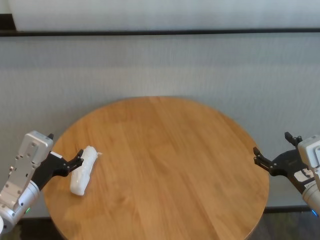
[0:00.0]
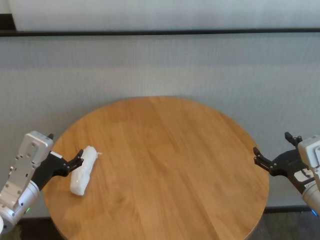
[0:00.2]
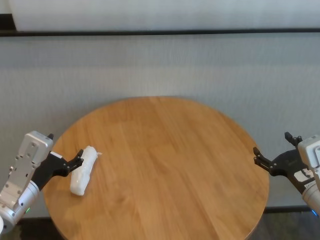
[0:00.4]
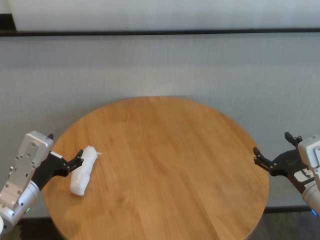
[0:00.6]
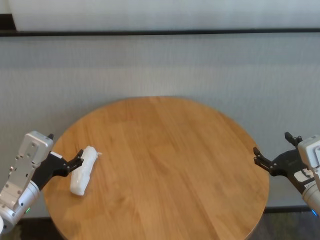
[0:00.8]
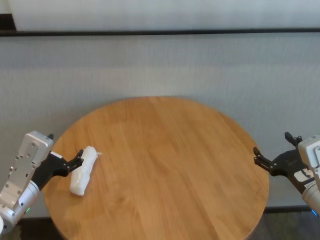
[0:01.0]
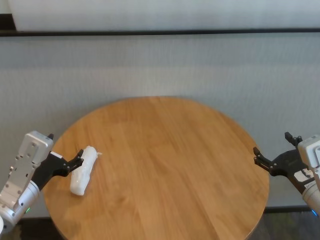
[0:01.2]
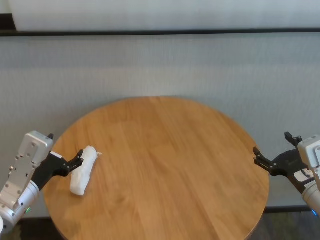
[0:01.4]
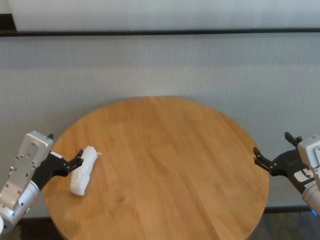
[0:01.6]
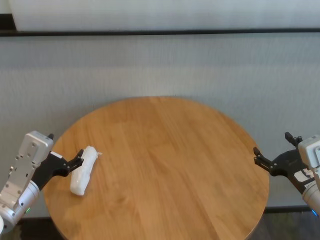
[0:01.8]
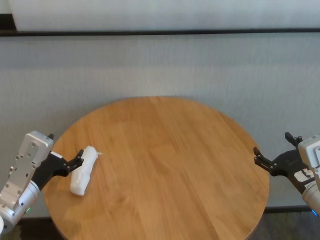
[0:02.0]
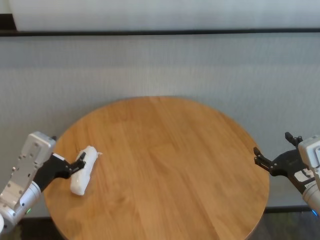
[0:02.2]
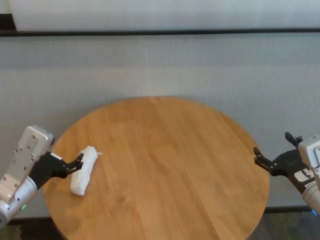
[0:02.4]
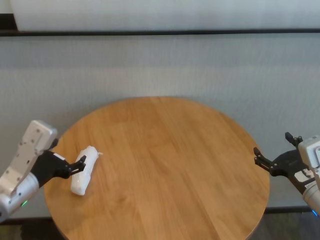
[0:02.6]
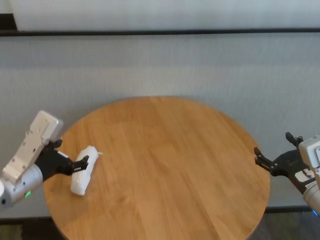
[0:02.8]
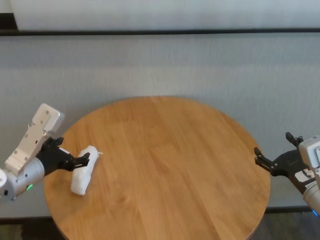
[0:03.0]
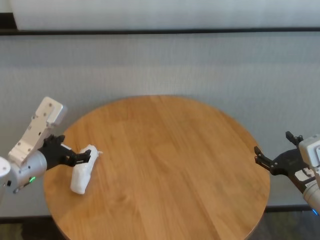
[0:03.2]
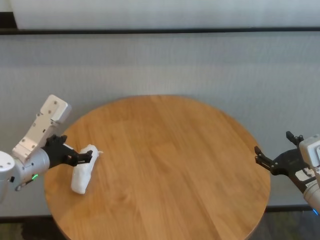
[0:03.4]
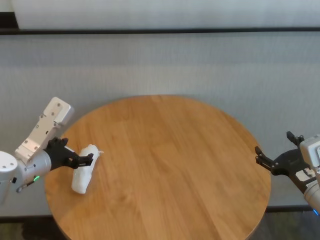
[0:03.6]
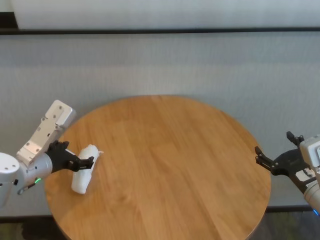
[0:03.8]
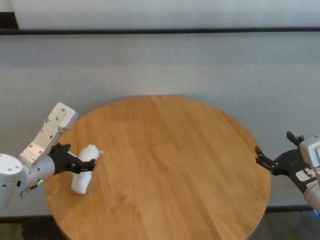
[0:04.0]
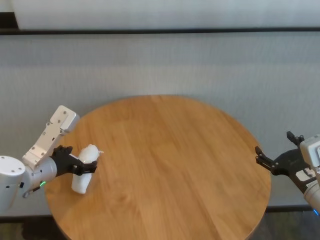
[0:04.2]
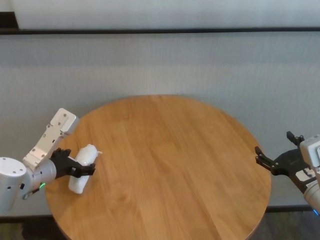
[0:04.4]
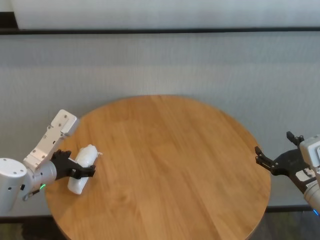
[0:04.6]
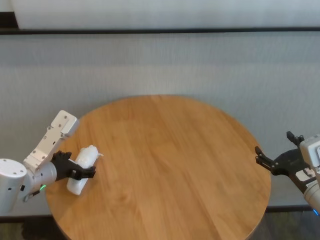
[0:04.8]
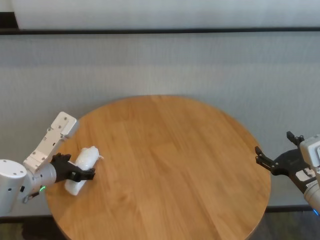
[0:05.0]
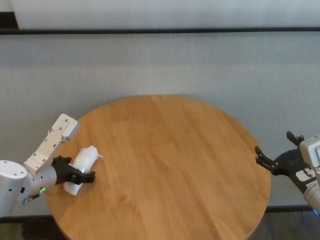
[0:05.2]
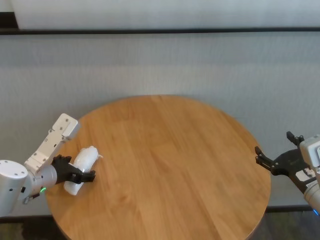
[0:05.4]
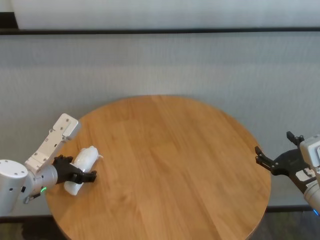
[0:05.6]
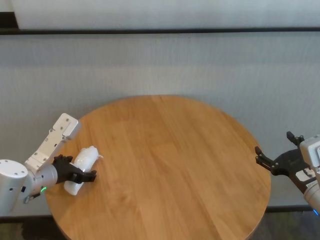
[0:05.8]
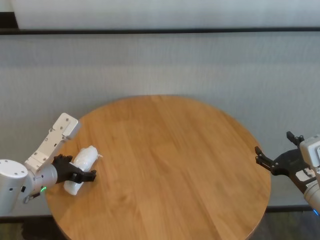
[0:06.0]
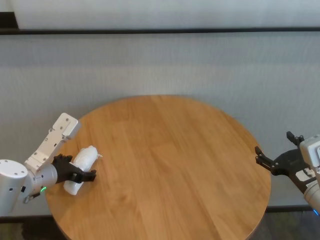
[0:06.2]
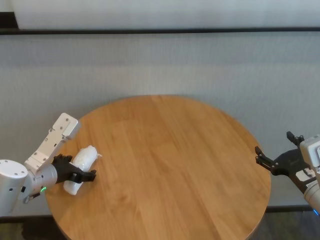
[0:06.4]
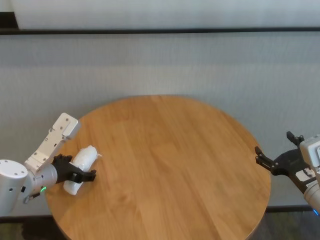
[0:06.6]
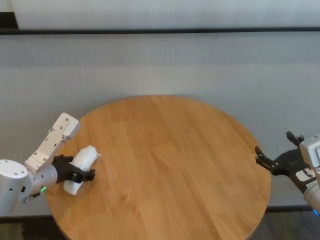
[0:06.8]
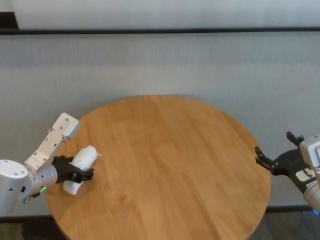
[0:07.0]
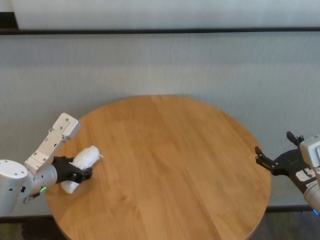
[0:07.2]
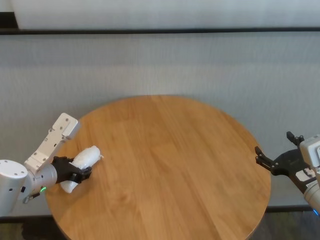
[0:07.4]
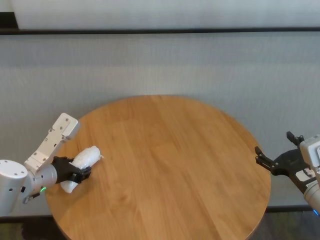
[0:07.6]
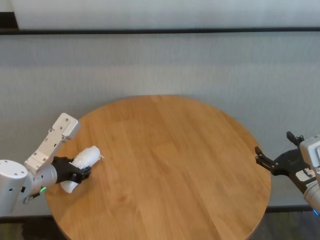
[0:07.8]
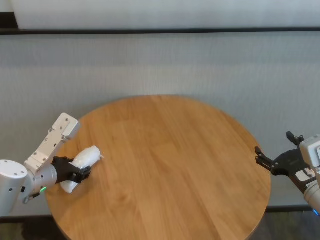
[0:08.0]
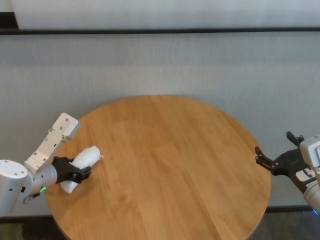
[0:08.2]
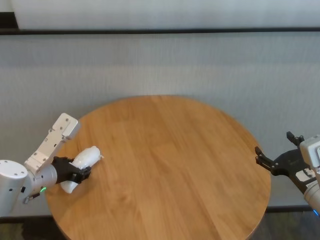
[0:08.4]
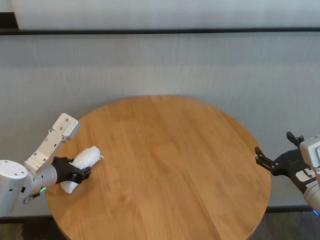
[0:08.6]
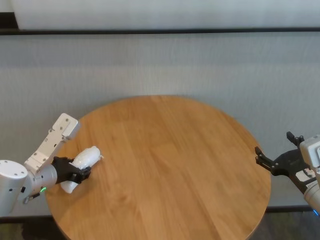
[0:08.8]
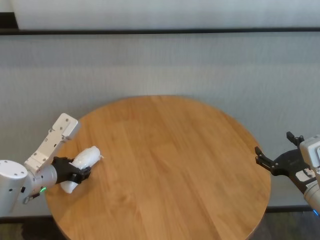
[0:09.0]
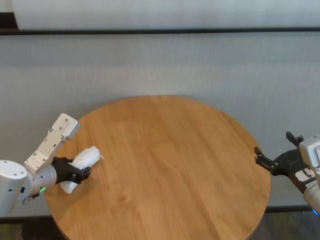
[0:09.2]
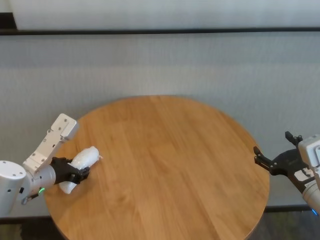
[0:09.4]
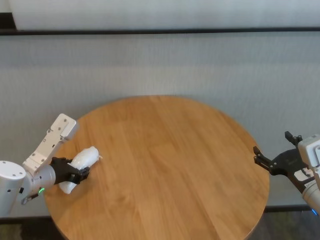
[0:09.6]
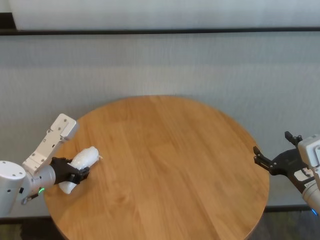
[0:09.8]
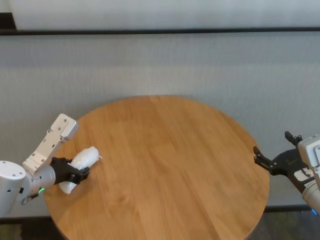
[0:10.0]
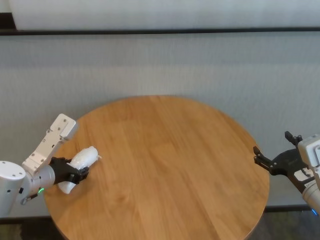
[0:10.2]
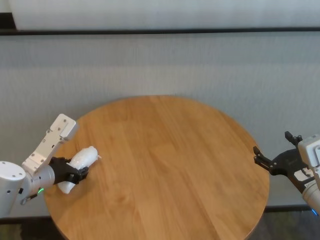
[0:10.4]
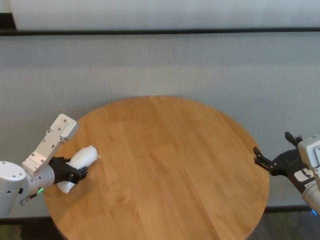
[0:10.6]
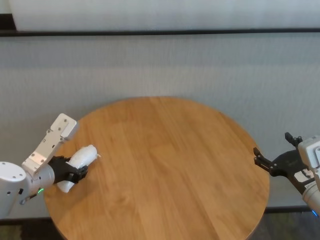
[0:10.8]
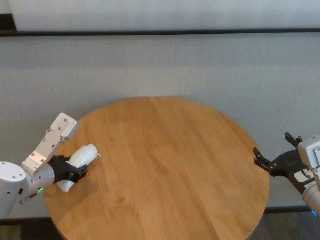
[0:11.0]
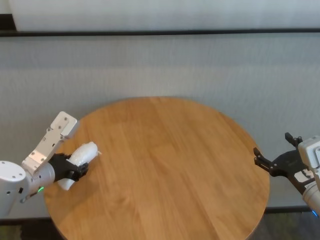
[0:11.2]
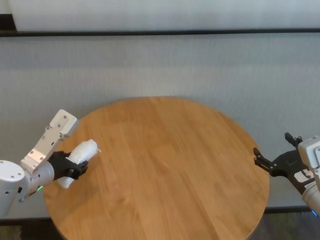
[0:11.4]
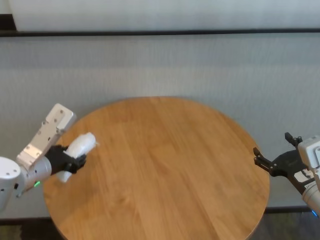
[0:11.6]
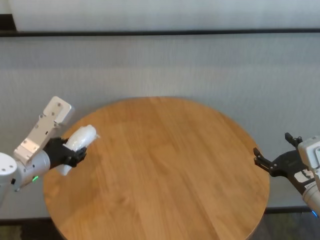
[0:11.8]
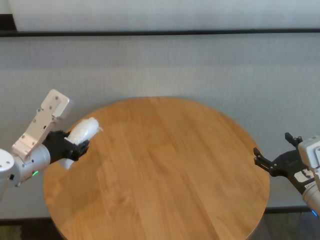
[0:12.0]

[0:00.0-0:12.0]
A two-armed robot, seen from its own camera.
Task of the whole recording: One hand took the sandbag from the other hand and placed it on the table.
Step, 0:00.0 to 0:07.6: Grasp the paper ball with left gripper.

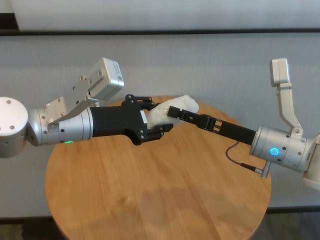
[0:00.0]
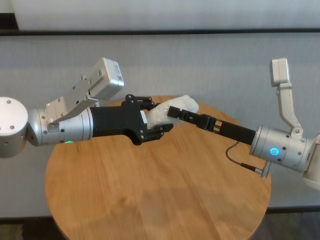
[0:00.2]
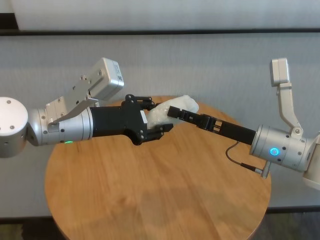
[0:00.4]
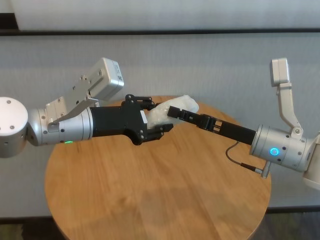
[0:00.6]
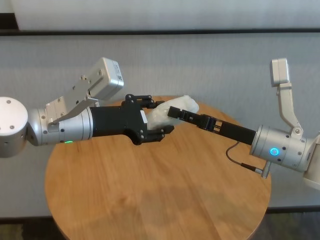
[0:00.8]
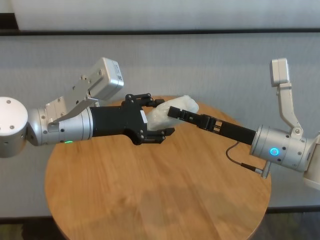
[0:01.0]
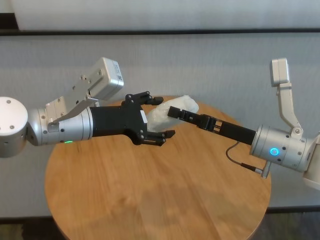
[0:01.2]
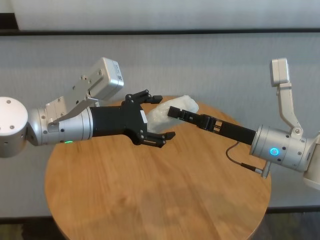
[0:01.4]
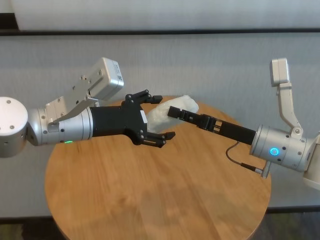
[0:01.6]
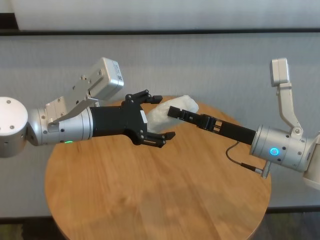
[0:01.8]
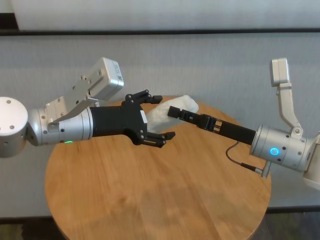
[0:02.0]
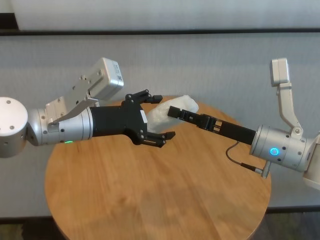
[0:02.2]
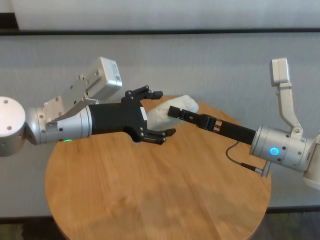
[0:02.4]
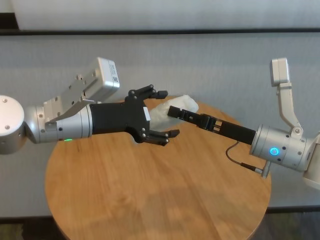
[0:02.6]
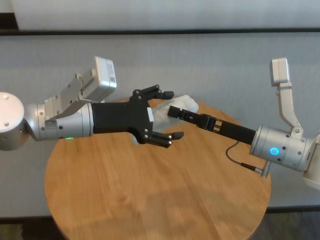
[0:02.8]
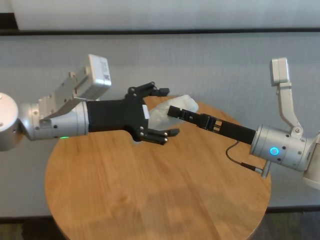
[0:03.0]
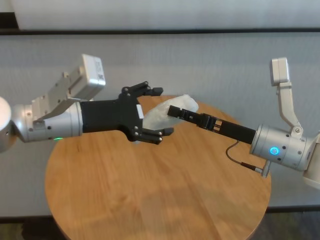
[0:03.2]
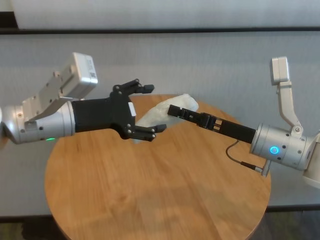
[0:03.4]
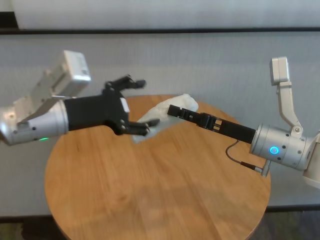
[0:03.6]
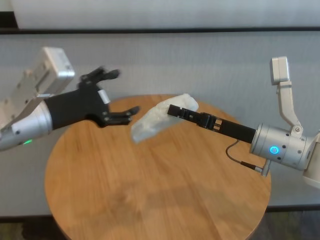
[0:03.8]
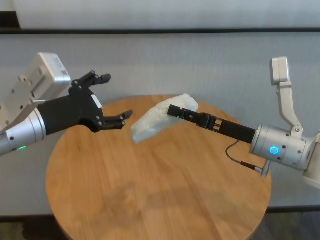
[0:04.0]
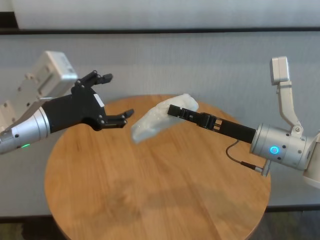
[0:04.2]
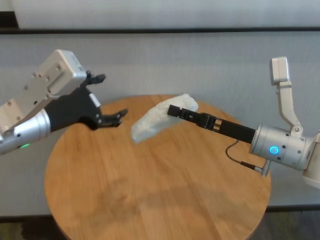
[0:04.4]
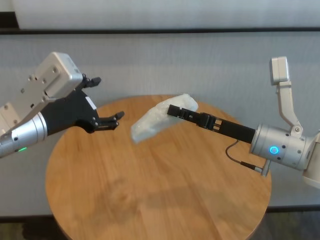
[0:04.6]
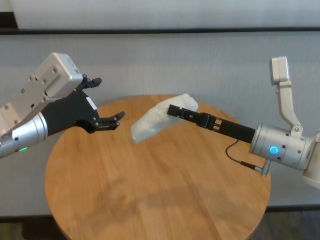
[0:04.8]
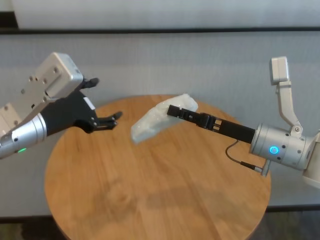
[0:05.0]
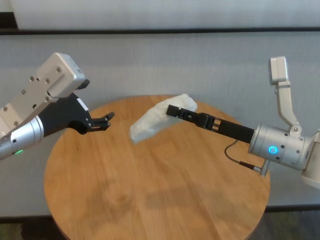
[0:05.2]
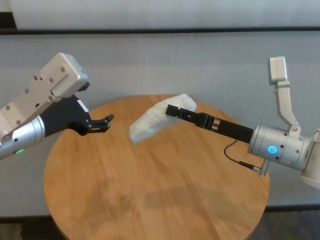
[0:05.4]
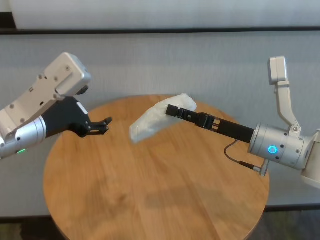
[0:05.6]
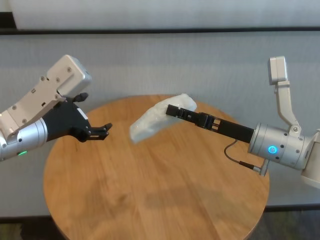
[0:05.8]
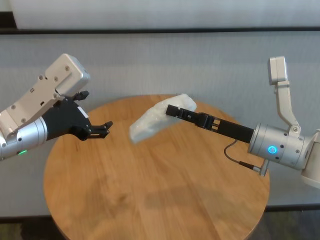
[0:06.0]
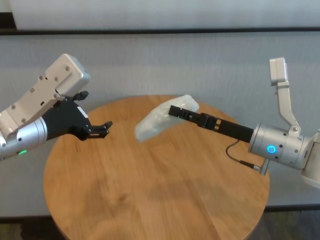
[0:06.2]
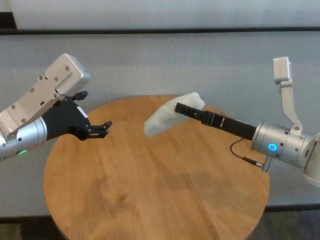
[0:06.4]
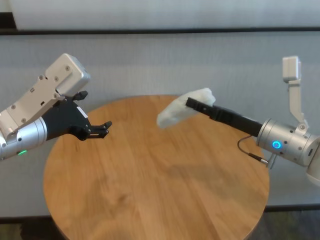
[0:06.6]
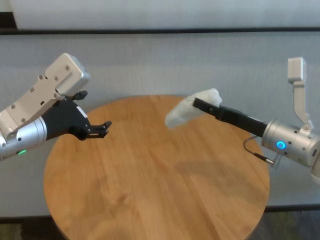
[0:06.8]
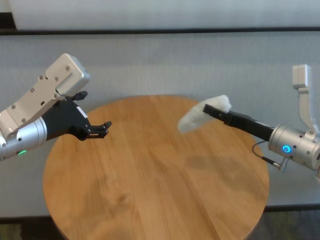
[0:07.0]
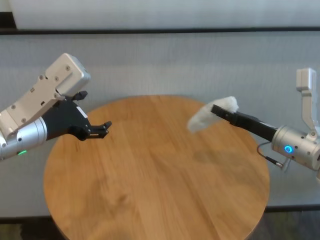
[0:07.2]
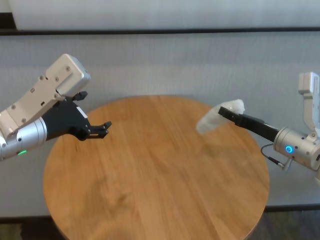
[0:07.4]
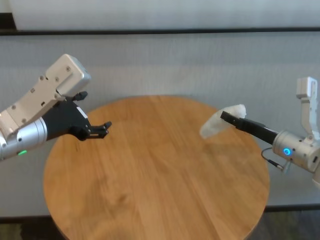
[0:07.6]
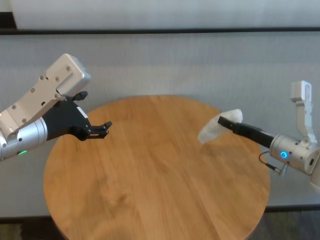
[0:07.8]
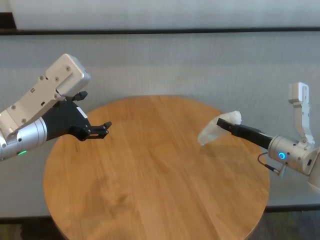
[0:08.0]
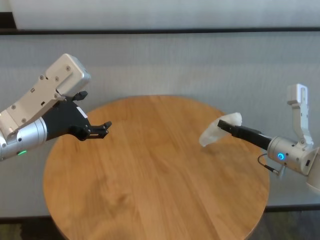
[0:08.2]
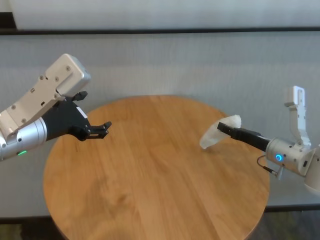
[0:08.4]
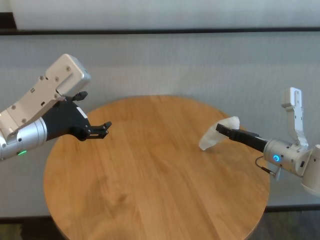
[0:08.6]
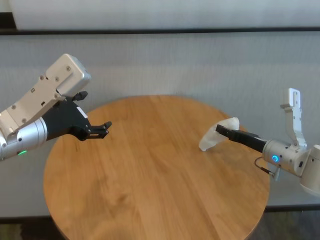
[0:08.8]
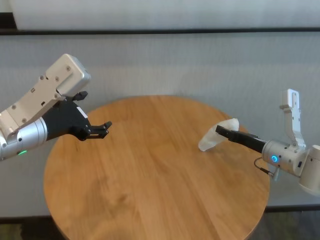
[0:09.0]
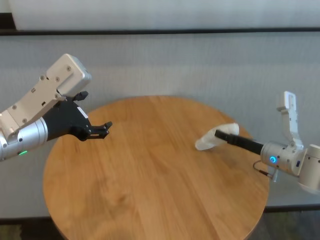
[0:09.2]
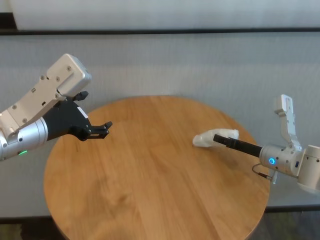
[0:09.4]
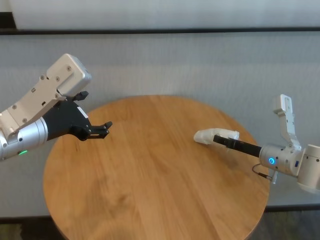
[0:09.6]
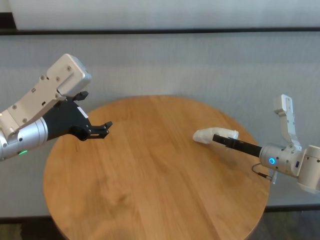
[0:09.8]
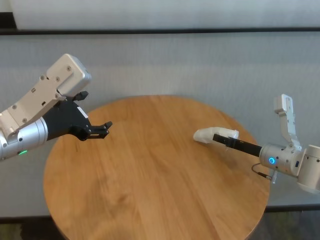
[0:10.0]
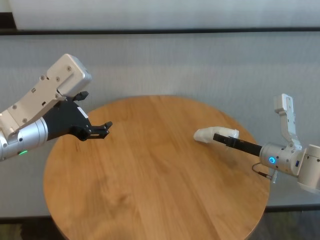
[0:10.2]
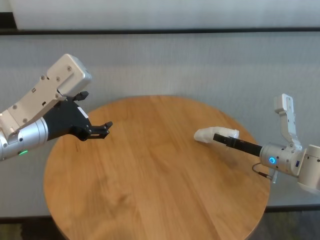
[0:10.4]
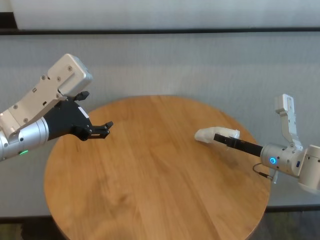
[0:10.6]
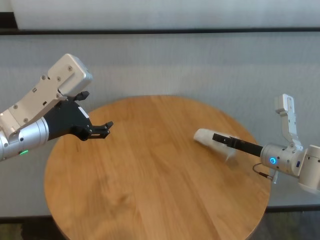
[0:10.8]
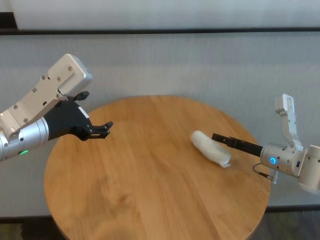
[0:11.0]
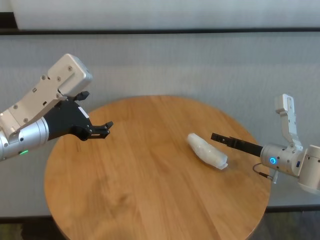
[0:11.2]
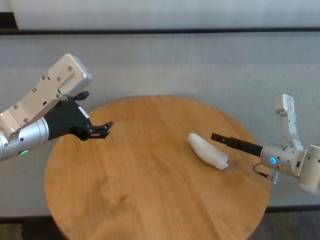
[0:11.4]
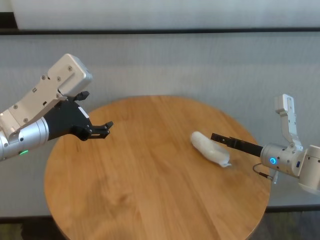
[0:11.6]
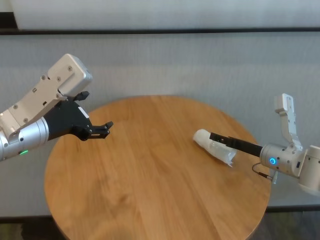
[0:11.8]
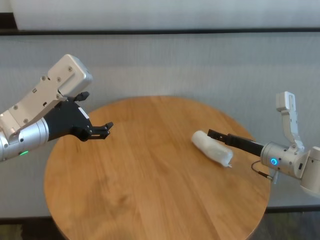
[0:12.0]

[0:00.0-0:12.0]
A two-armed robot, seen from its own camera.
Task of the whole recording: One hand took the sandbag from the other hand and placed it on the table.
Step, 0:00.0 to 0:02.4: Pass the paper ball to the right gripper.
Step, 0:02.8 to 0:11.2: Place the paper ball on the table with right gripper.
